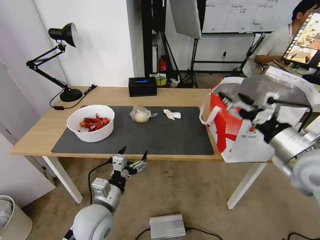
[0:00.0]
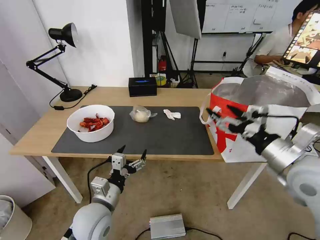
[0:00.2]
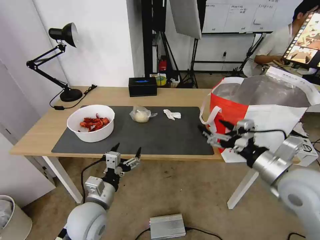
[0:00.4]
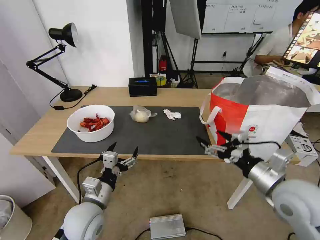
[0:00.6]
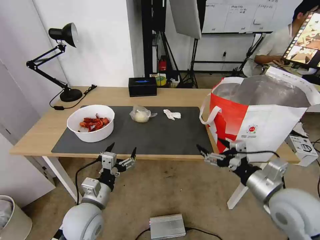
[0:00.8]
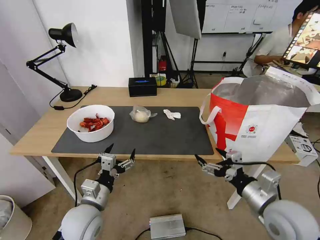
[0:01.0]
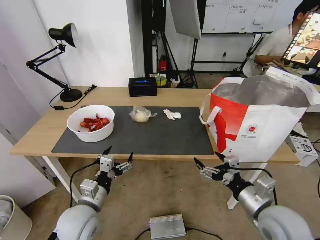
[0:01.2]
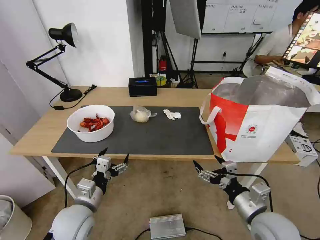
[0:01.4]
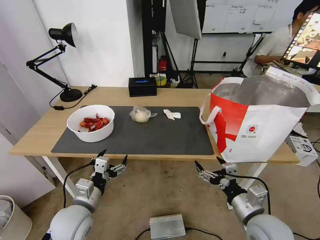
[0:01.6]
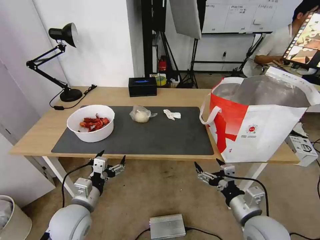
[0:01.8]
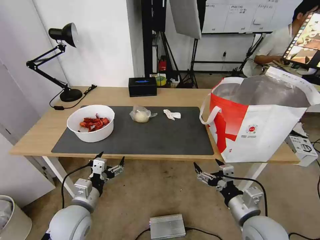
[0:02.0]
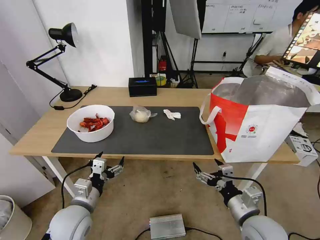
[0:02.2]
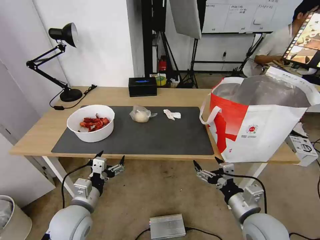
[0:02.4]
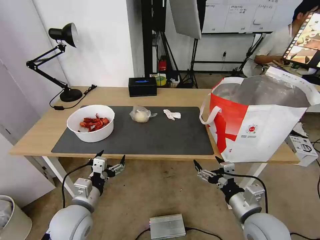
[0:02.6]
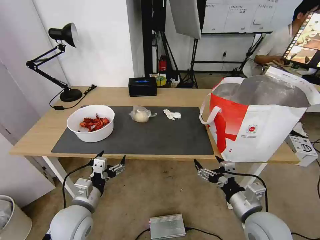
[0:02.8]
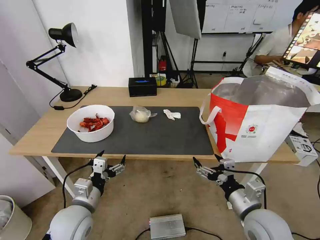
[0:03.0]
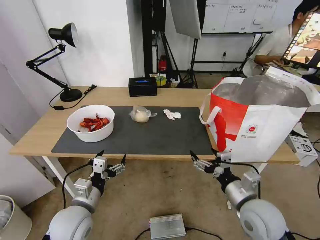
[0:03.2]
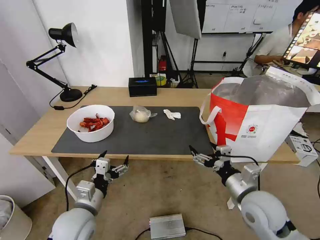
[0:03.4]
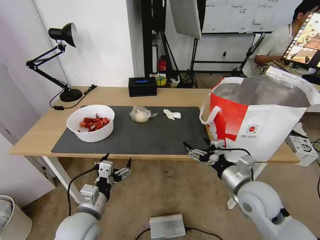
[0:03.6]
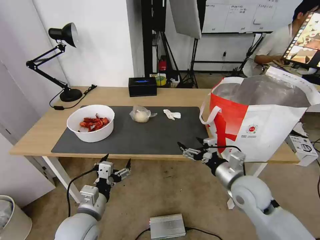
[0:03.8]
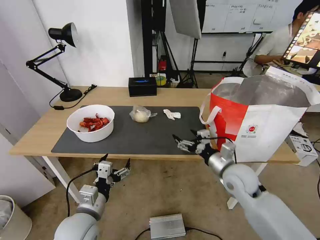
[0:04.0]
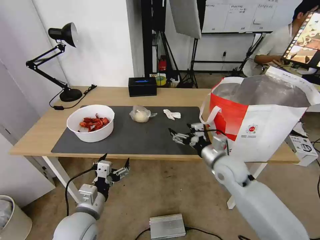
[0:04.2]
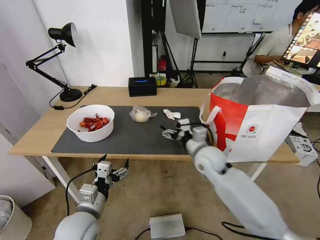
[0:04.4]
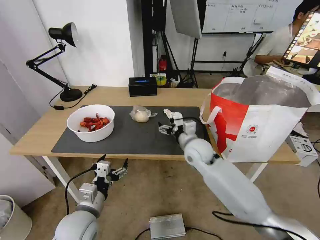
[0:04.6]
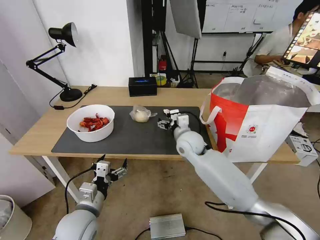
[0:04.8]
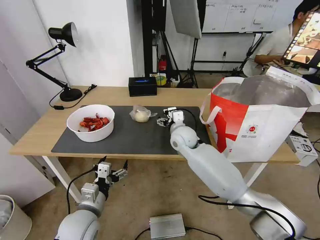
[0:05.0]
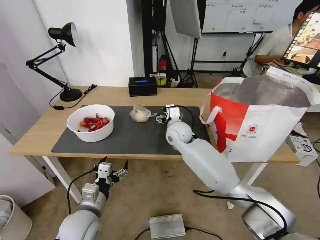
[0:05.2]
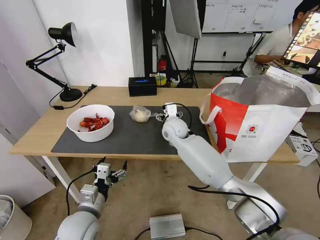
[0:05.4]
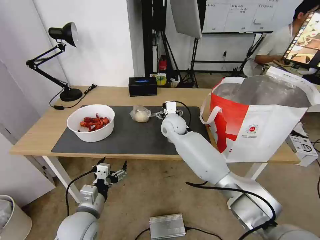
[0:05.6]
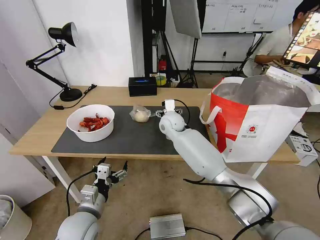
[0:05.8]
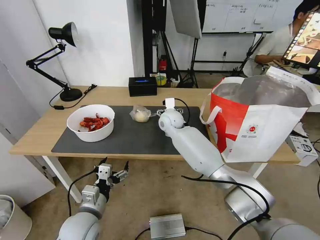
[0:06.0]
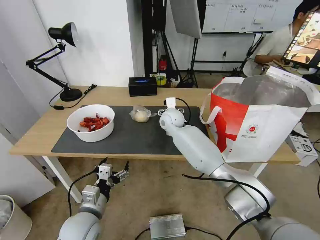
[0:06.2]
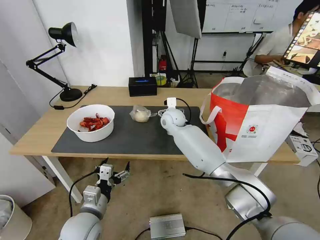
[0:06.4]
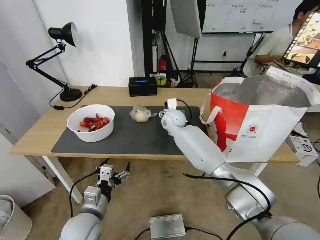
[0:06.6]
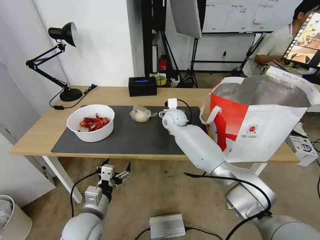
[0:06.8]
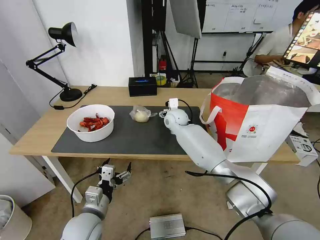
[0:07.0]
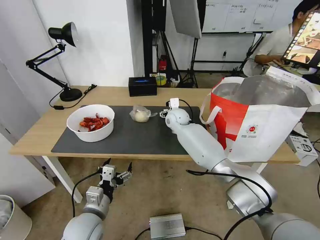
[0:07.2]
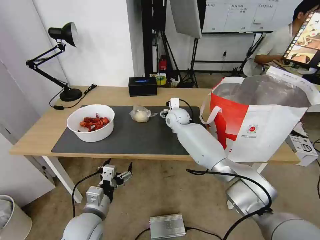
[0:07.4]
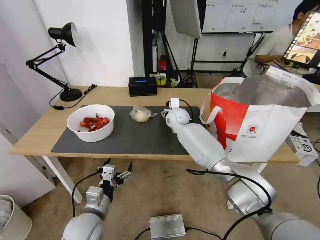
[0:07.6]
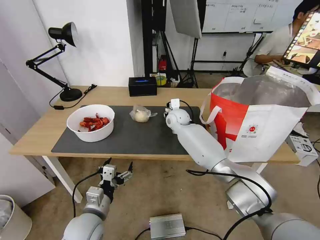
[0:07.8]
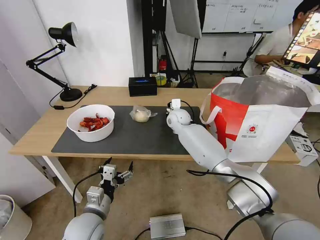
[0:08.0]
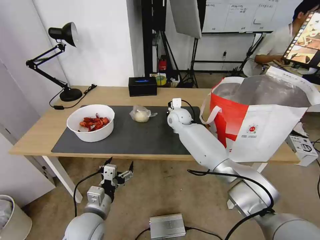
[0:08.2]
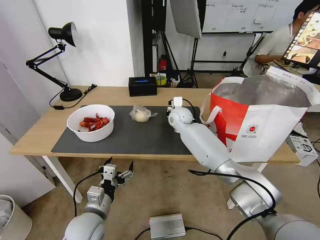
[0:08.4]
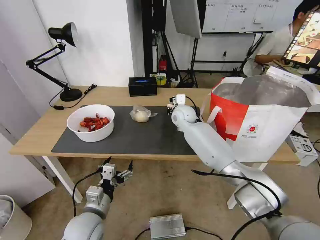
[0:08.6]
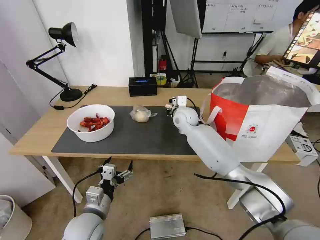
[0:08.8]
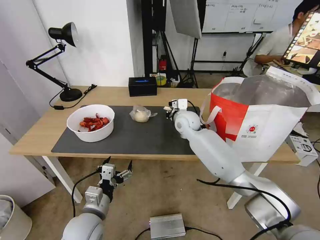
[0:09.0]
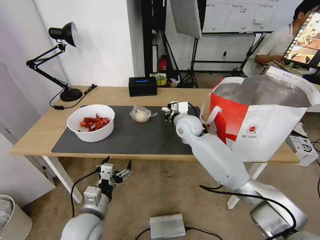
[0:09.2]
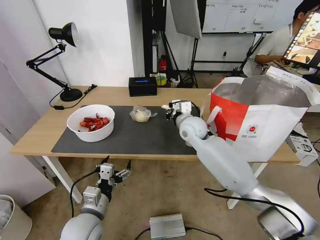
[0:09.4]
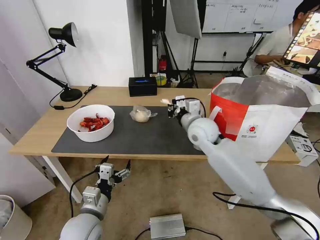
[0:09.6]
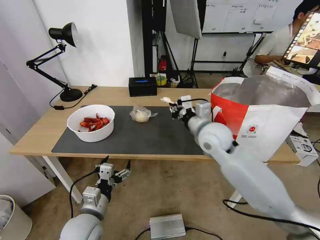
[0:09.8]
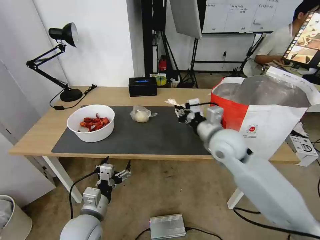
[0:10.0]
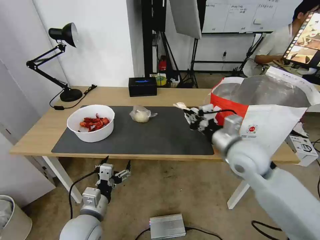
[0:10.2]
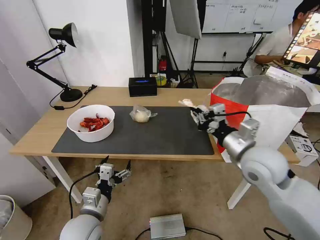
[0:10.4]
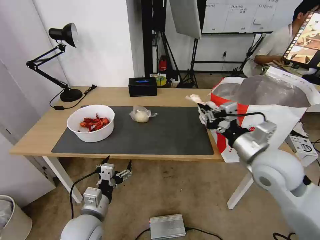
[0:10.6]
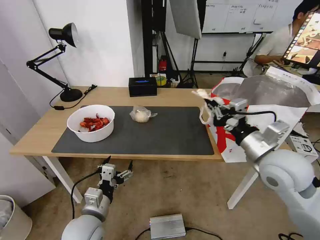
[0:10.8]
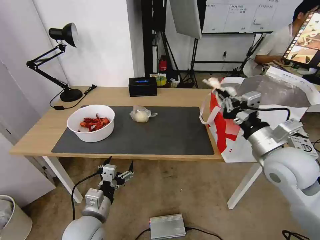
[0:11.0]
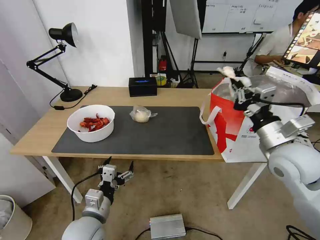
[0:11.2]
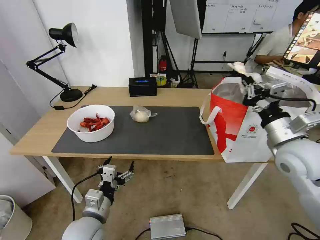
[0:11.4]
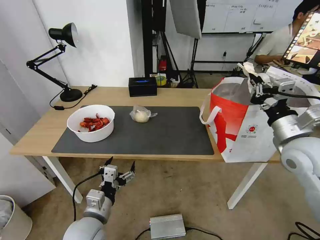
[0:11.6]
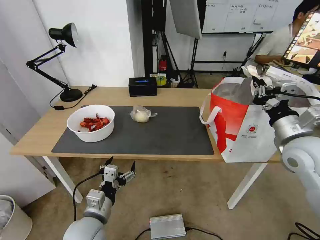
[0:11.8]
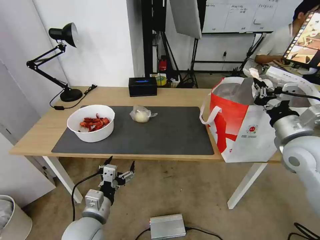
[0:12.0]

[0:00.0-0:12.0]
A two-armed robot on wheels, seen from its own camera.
Task of the whole recording: Pick up the trash from the table and place it into the takeout bag.
0:00.0 to 0:01.6: The left gripper goes about 5 cm to the left; the right gripper moves downward and backward, about 20 cm.
0:01.6 to 0:03.0: The grippers move only a little.
0:03.0 to 0:04.4: The right gripper moves forward and to the left, about 20 cm.
0:04.4 to 0:06.0: The right gripper is displaced forward and to the left by about 20 cm.
0:06.0 to 0:07.6: The right gripper changes place by approximately 5 cm.
0:07.6 to 0:09.0: The right gripper shifts roughly 5 cm backward, and closes up.
0:09.0 to 0:10.4: The right gripper is displaced backward and to the right by roughly 25 cm.
0:10.4 to 0:12.0: The right gripper goes some 10 cm to the right.

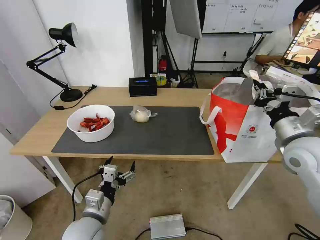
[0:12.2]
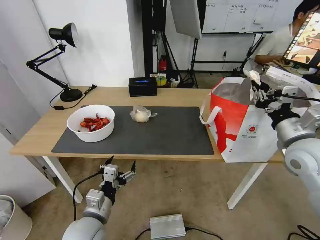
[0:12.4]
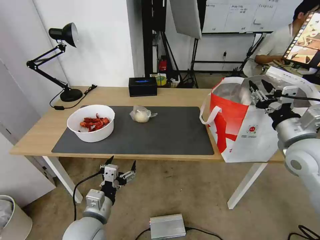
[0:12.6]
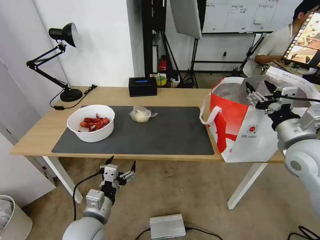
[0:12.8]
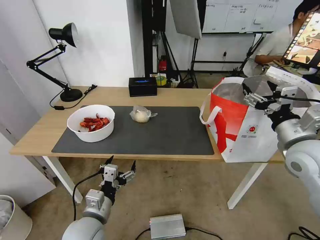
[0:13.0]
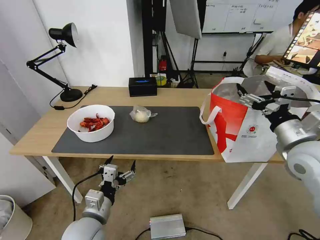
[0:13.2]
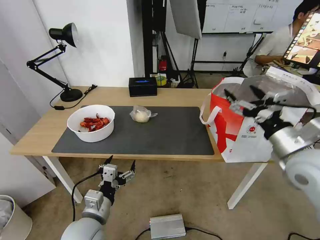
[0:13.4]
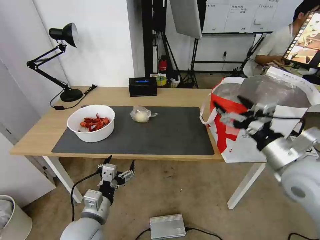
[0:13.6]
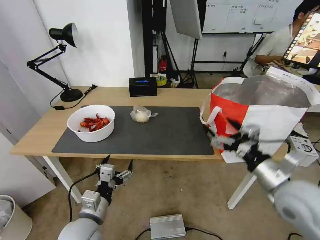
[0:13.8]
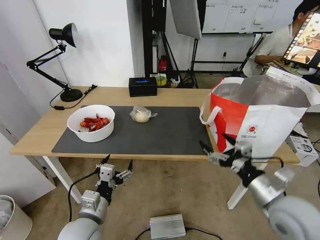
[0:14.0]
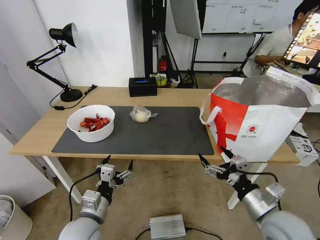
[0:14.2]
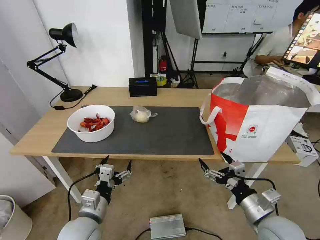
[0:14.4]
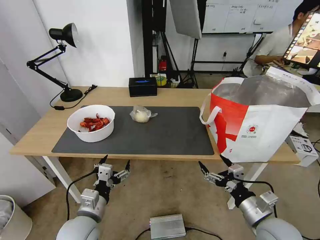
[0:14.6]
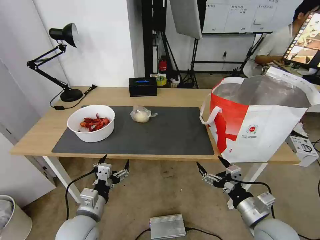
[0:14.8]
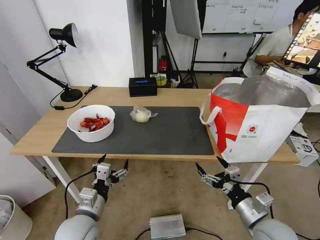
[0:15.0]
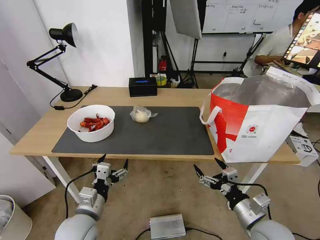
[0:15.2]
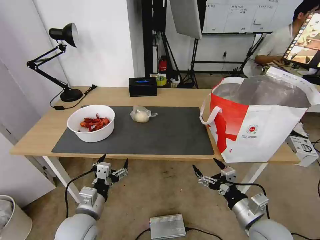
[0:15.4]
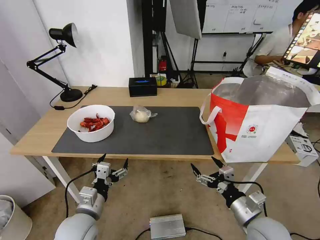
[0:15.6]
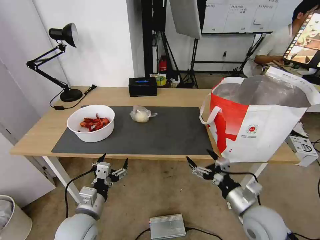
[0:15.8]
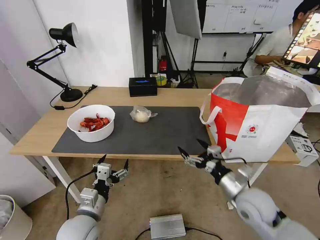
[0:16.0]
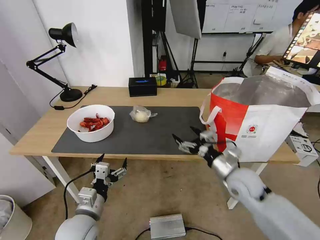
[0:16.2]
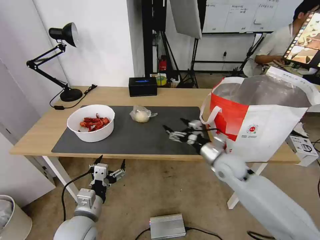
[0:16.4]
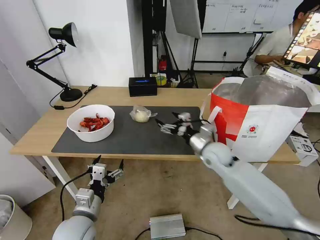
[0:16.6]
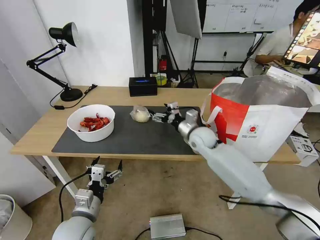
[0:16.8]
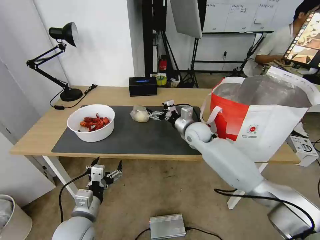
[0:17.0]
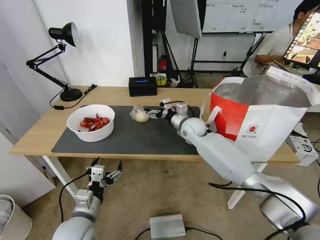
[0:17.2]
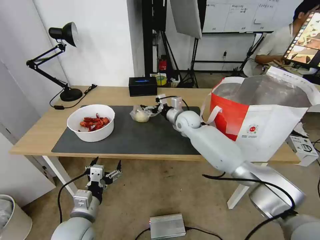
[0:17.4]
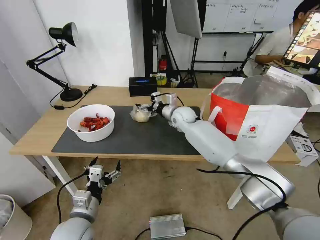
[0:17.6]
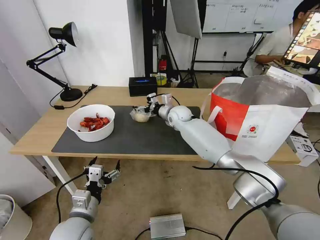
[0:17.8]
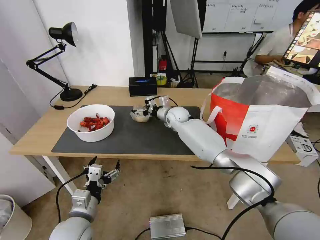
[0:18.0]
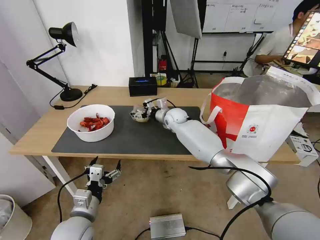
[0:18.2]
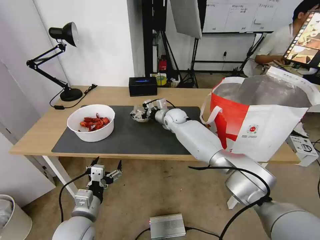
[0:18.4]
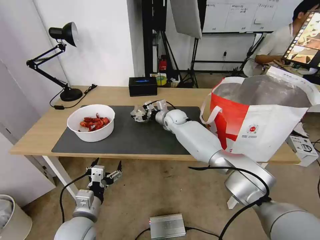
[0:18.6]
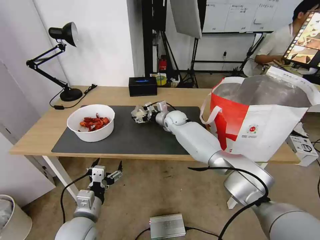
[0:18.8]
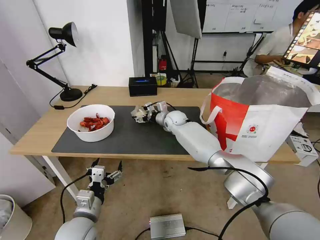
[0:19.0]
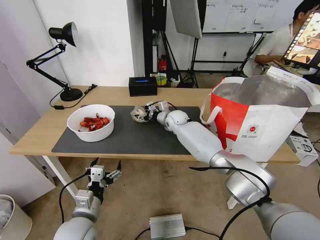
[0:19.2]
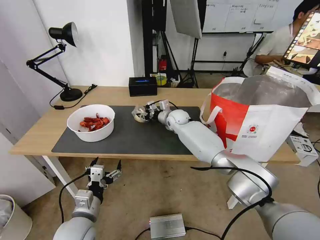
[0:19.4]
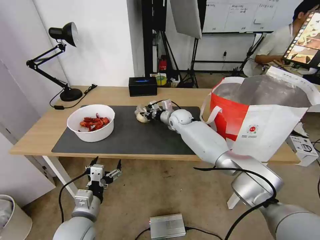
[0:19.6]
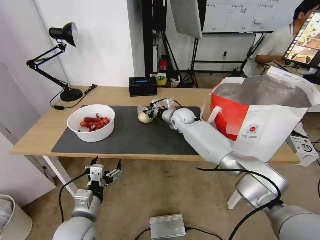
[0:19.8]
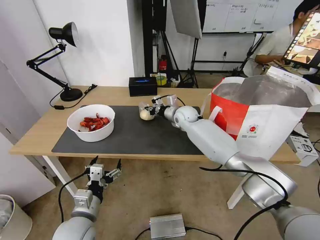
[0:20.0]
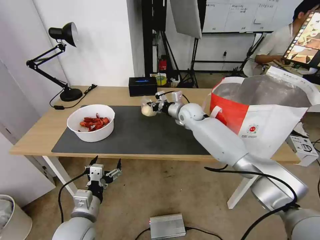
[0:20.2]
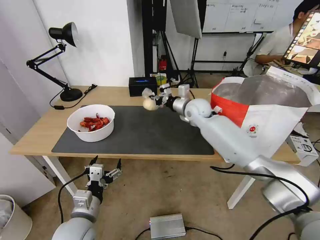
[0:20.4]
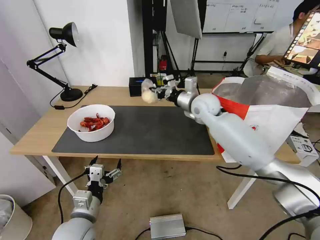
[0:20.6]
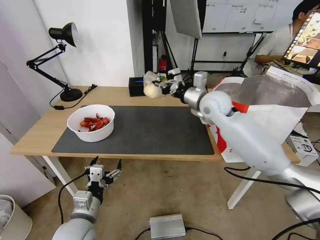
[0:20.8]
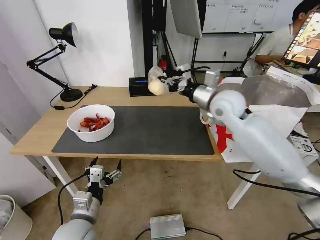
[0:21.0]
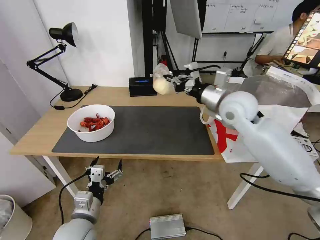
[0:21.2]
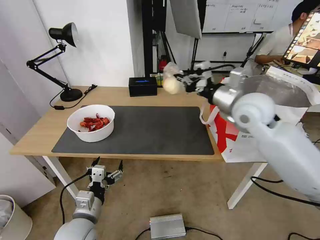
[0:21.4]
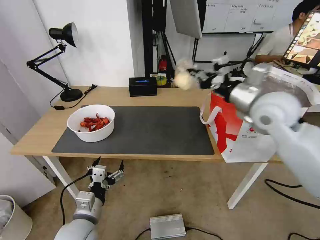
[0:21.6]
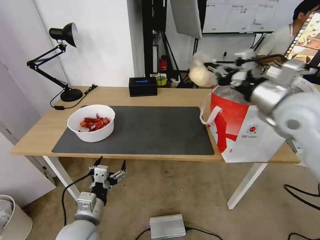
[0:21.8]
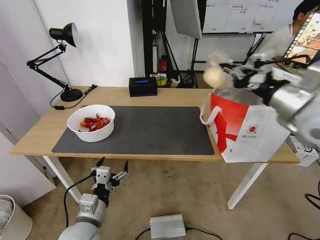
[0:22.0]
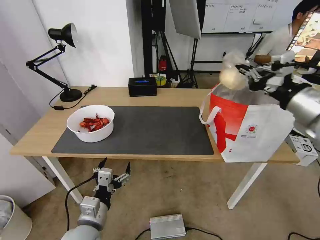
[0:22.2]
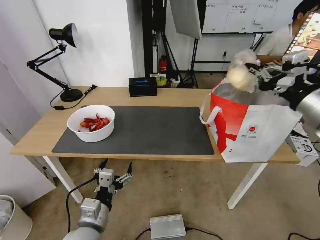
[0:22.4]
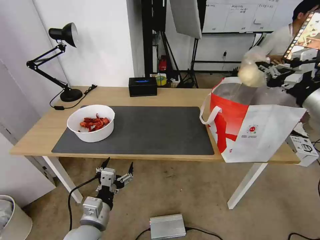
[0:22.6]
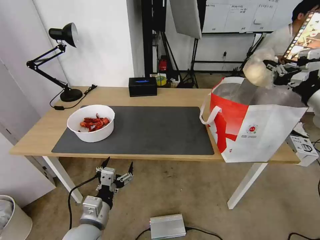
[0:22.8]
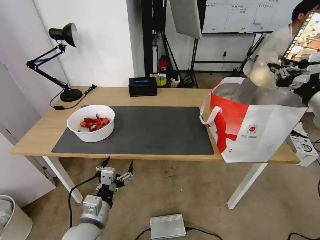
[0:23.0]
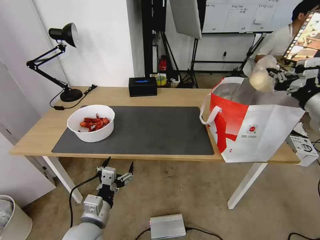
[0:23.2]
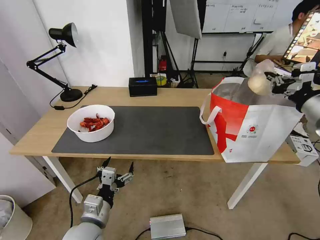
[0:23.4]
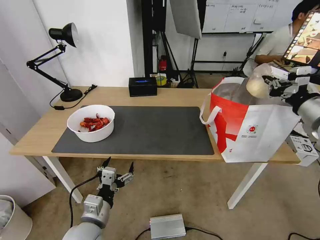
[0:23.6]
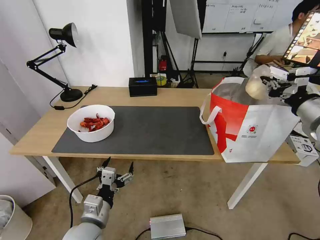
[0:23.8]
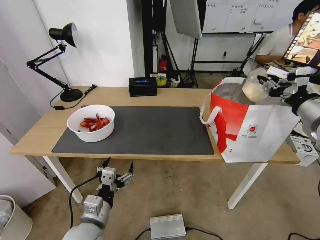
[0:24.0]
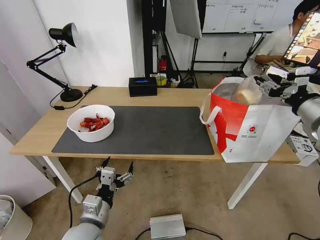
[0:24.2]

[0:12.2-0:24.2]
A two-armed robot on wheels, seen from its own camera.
Task of the whole recording: Pick up the trash from the table and place it into the takeout bag.
0:12.2 to 0:13.8: The right gripper is displaced backward by approximately 10 cm, and opens.
0:13.8 to 0:15.2: The right gripper moves downward and backward, roughly 15 cm.
0:15.2 to 0:16.6: The right gripper travels forward by about 25 cm.
0:16.6 to 0:18.2: The right gripper shifts approximately 20 cm forward and to the left.
0:18.2 to 0:19.8: The right gripper closes its fingers.
0:19.8 to 0:21.2: The right gripper is displaced upward, backward and to the right by approximately 25 cm.
0:21.2 to 0:22.6: The right gripper moves to the right and backward, some 20 cm.
0:22.6 to 0:24.2: The right gripper changes place by some 5 cm, and opens its fingers.
